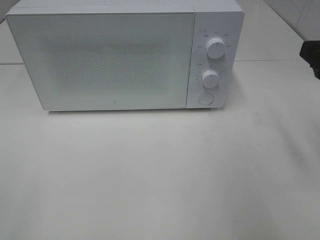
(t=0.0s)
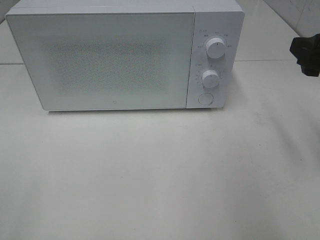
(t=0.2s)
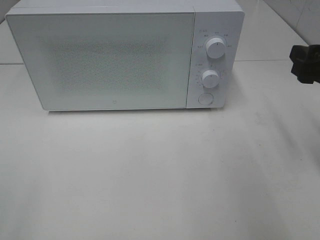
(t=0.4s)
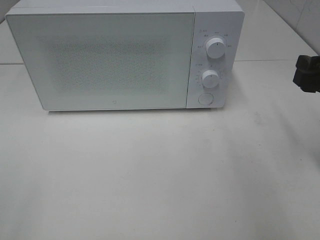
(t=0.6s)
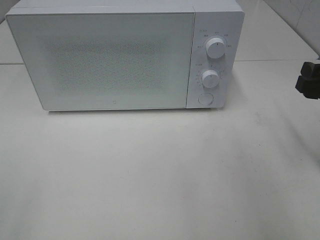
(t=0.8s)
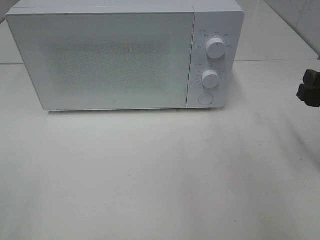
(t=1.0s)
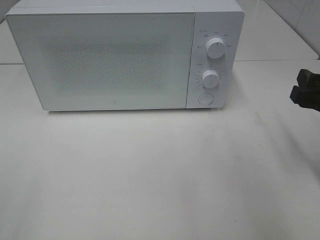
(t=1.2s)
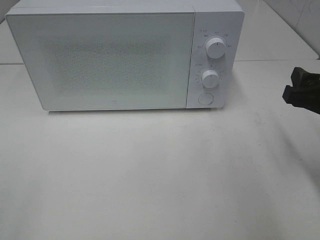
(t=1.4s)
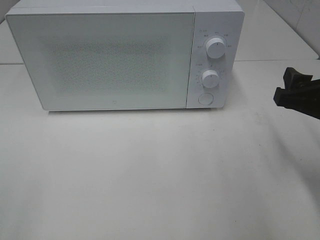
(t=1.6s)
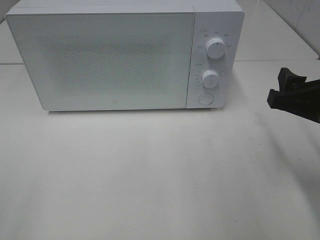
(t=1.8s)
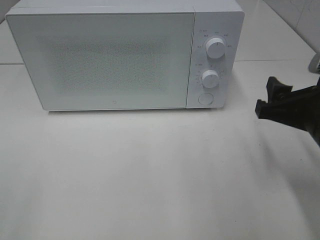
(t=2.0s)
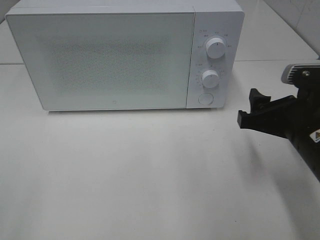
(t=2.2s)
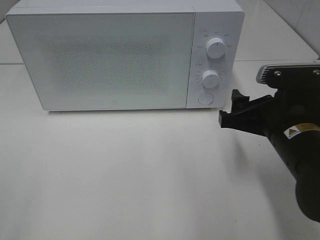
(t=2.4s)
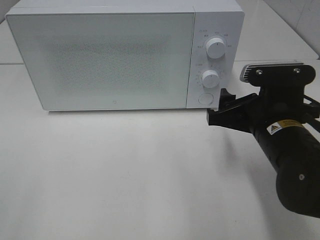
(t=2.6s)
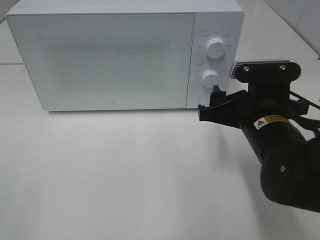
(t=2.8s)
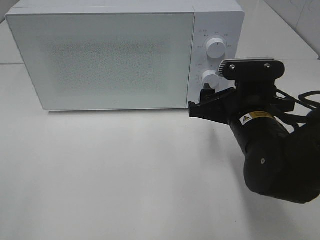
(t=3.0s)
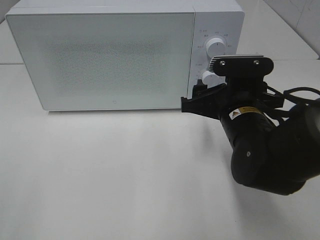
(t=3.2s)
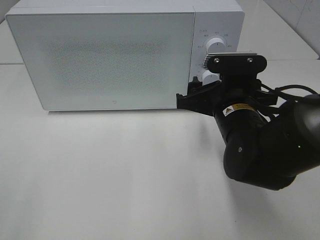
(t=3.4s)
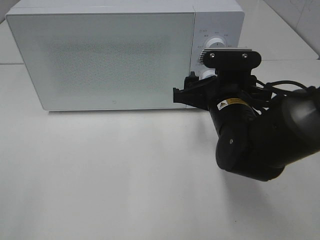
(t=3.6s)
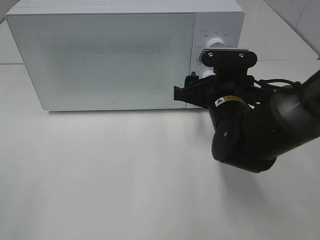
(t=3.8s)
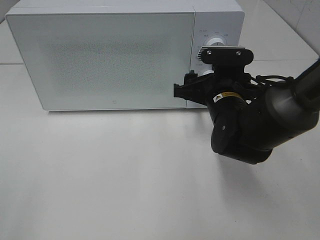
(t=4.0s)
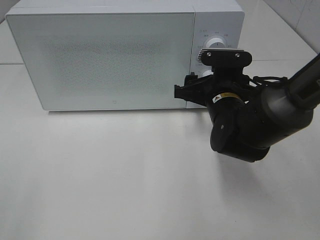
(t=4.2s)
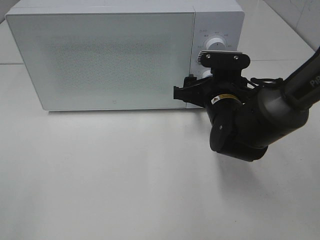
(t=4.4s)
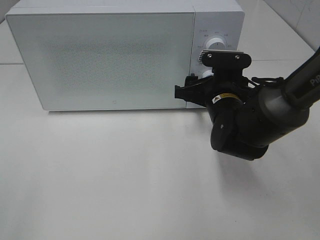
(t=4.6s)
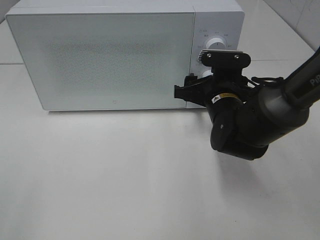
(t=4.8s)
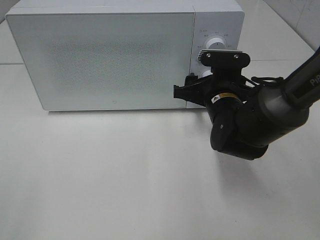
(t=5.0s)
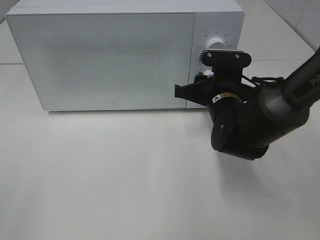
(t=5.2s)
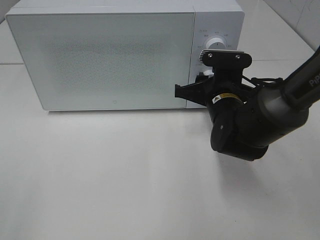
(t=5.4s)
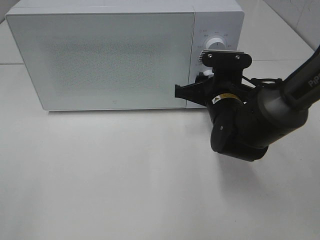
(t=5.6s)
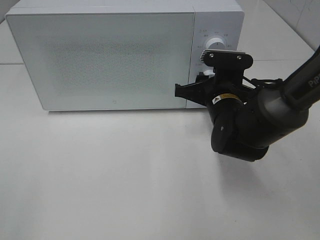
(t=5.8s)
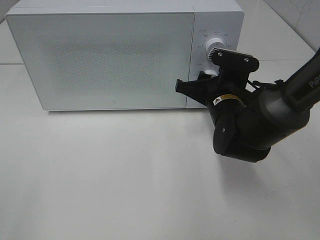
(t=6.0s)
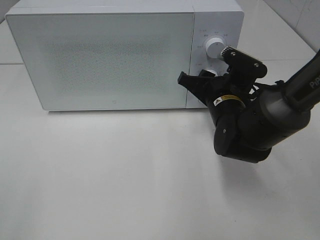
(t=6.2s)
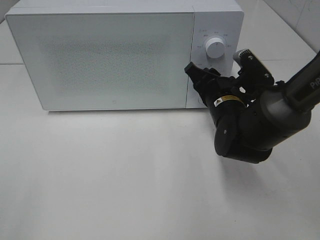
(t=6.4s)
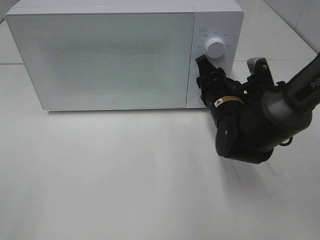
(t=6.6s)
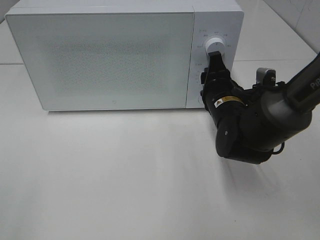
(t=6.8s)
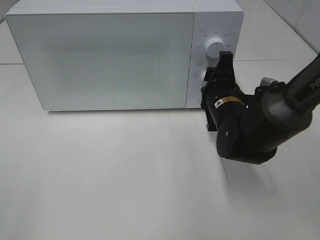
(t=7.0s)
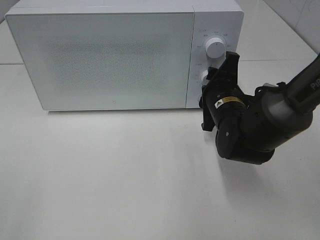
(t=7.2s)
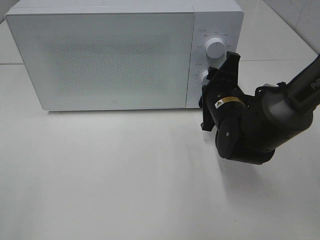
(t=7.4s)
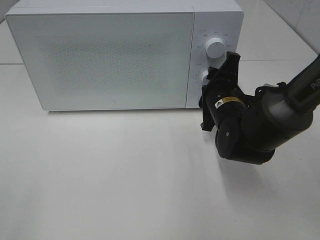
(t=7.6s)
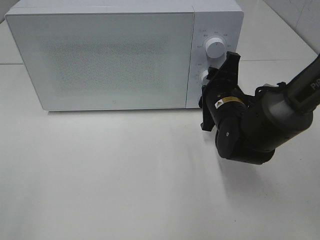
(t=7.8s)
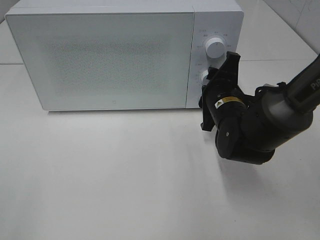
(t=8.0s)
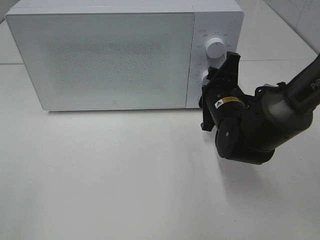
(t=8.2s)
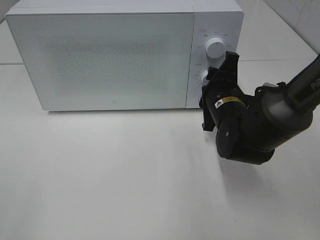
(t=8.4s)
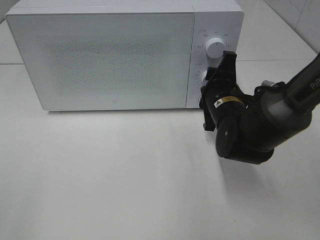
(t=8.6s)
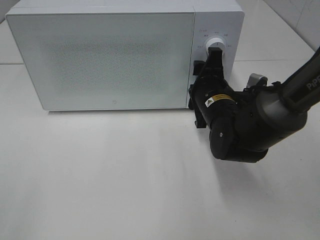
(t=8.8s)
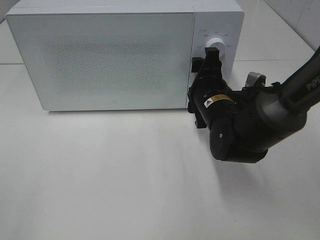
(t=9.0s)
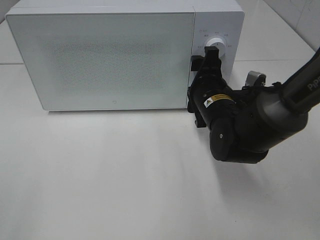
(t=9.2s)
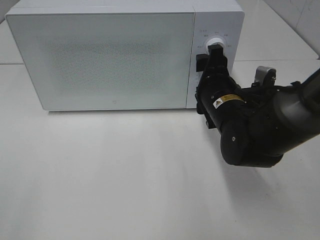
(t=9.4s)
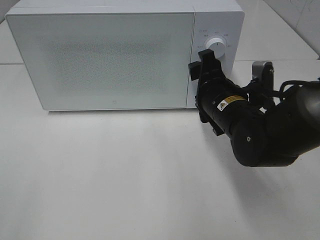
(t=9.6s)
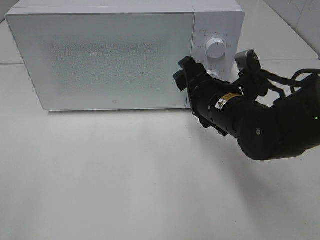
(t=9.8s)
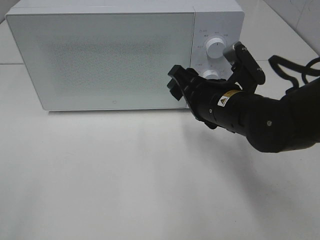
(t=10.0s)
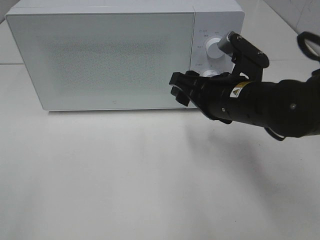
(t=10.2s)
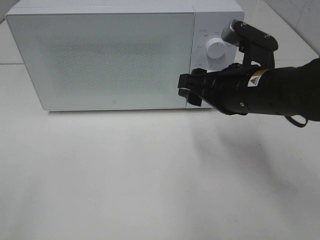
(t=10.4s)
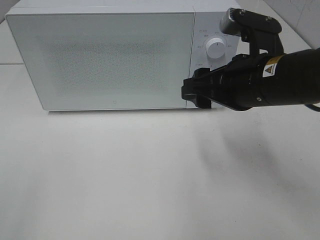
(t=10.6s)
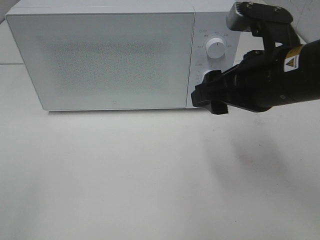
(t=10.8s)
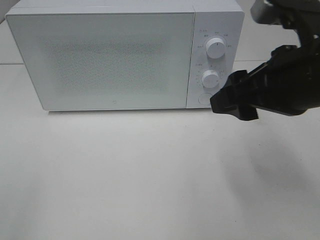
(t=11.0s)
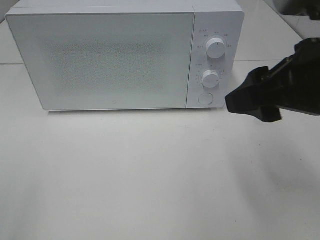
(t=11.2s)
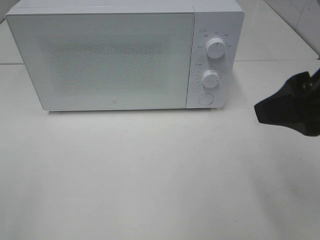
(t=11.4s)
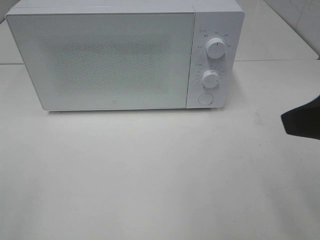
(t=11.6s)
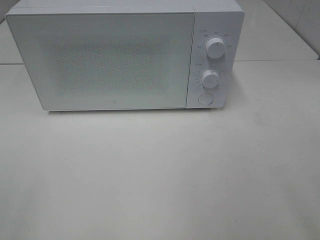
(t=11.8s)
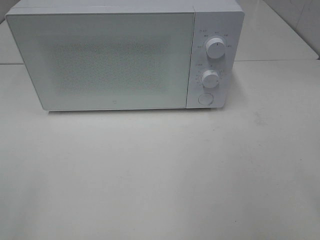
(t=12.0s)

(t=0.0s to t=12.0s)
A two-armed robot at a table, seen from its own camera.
Task of the whole recording: Heat the burger.
Step, t=0.0s - t=8.6s: Right hand: twist timer button.
t=0.0s - t=1.6s: The right gripper is displaced downward by approximately 5 cm.
t=1.6s - t=3.0s: The right gripper travels to the left by approximately 10 cm.
t=3.0s - t=4.4s: The right gripper shifts some 5 cm forward.
t=4.4s - t=6.0s: The right gripper closes its fingers.
t=7.6s - t=9.0s: There are only small adjustments of the grippers.
t=9.0s - t=10.4s: The right gripper goes some 10 cm upward and backward.
t=10.4s - t=12.0s: The right gripper shifts some 25 cm backward, upward and to the right.

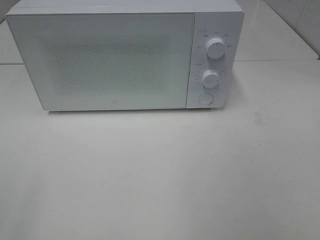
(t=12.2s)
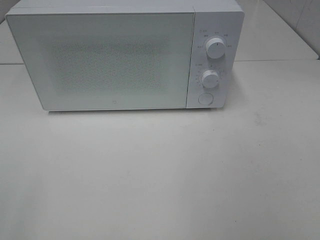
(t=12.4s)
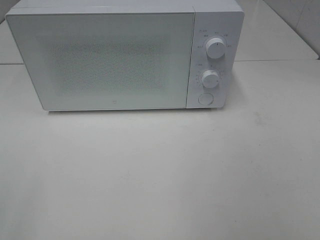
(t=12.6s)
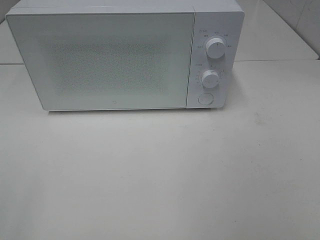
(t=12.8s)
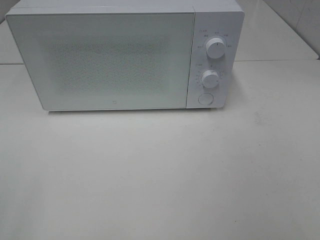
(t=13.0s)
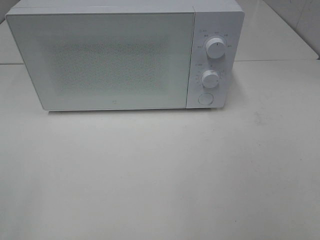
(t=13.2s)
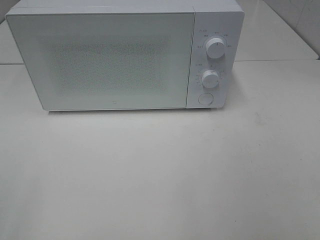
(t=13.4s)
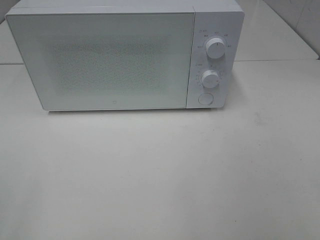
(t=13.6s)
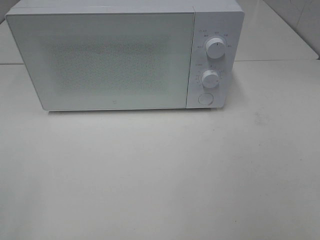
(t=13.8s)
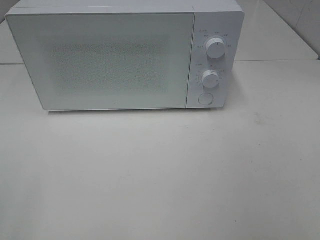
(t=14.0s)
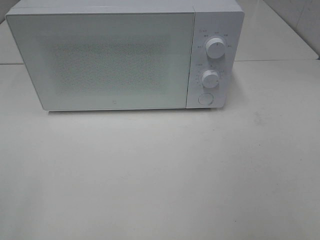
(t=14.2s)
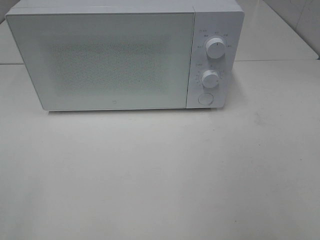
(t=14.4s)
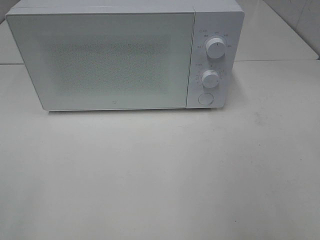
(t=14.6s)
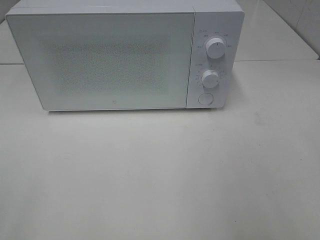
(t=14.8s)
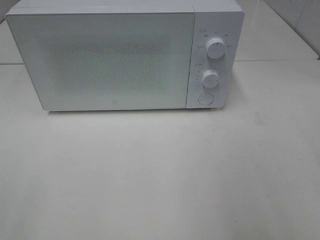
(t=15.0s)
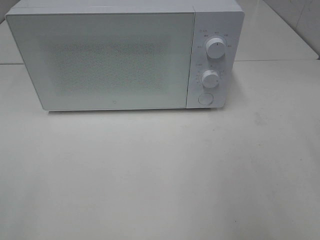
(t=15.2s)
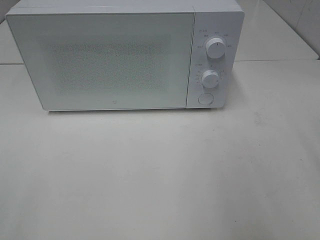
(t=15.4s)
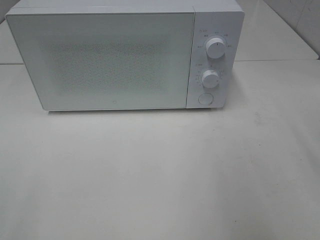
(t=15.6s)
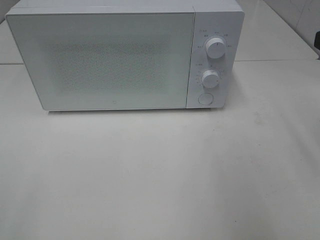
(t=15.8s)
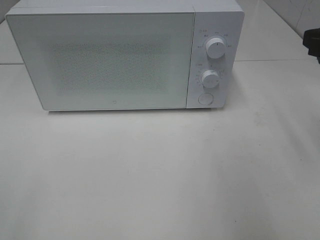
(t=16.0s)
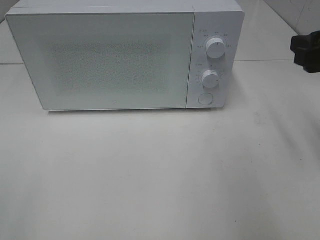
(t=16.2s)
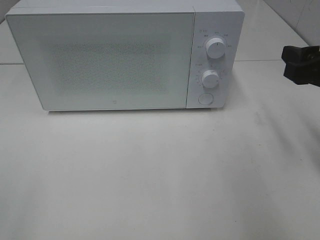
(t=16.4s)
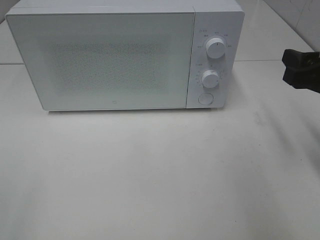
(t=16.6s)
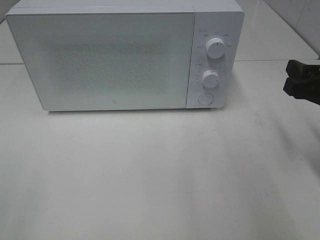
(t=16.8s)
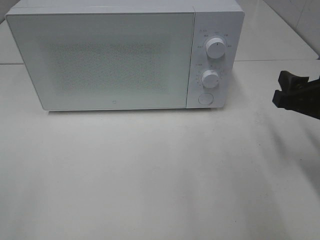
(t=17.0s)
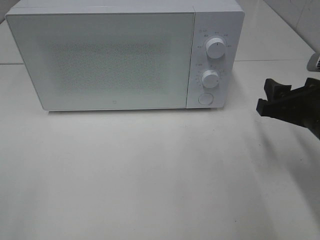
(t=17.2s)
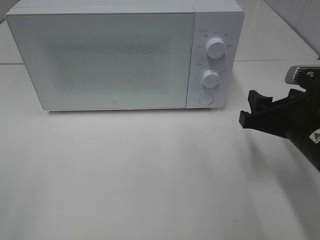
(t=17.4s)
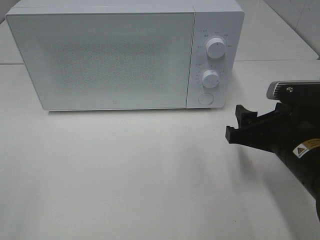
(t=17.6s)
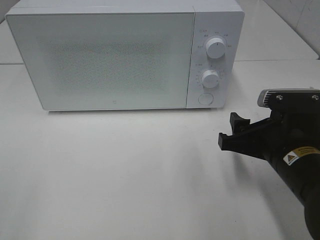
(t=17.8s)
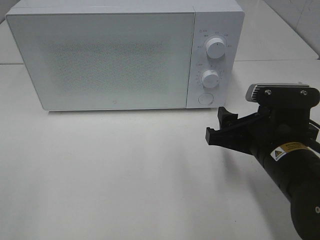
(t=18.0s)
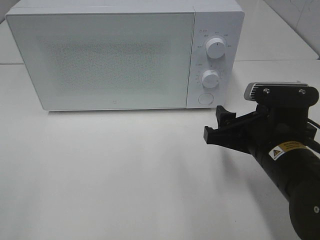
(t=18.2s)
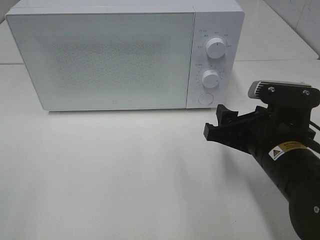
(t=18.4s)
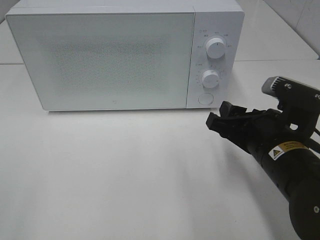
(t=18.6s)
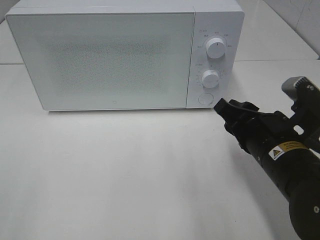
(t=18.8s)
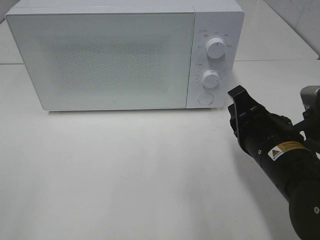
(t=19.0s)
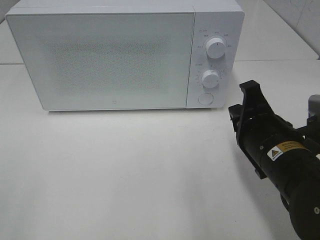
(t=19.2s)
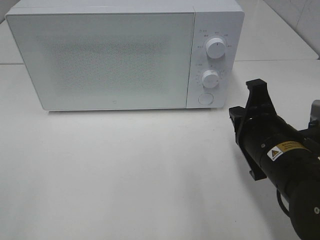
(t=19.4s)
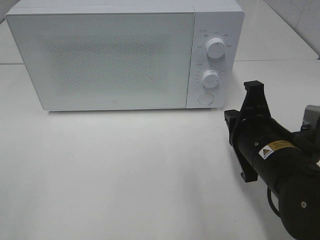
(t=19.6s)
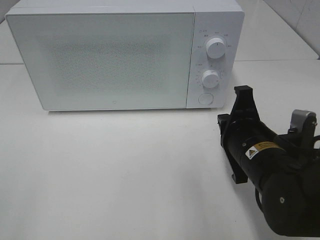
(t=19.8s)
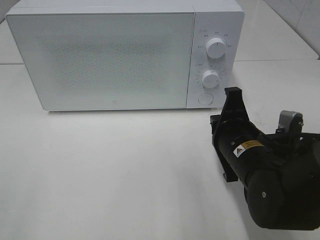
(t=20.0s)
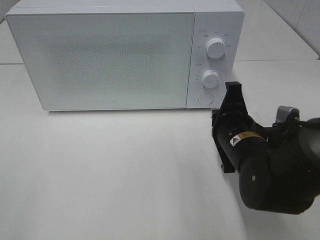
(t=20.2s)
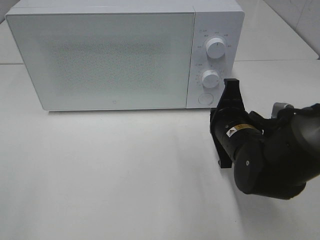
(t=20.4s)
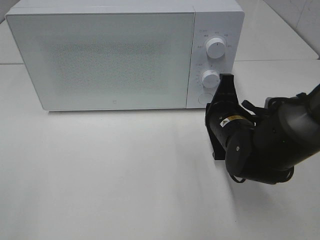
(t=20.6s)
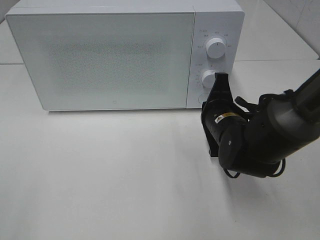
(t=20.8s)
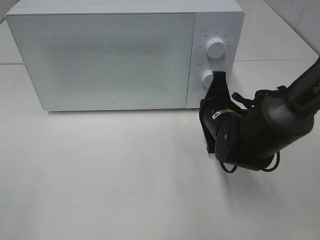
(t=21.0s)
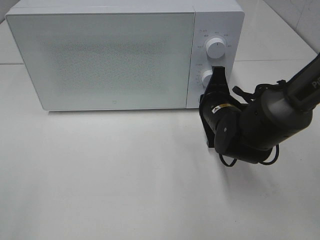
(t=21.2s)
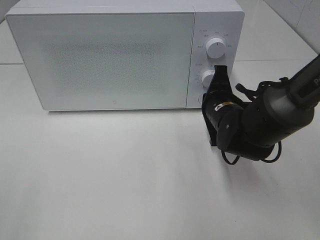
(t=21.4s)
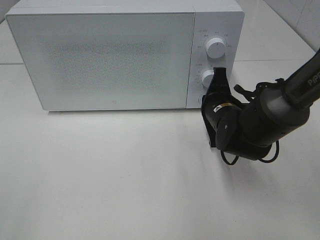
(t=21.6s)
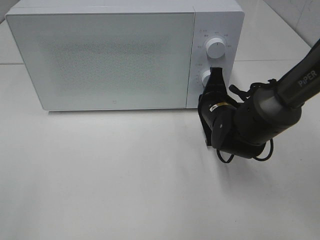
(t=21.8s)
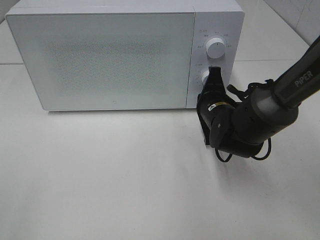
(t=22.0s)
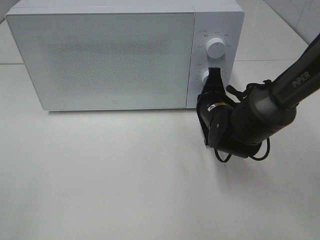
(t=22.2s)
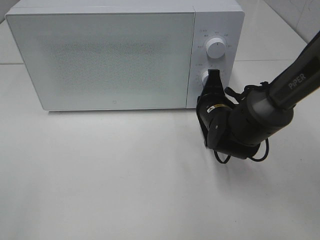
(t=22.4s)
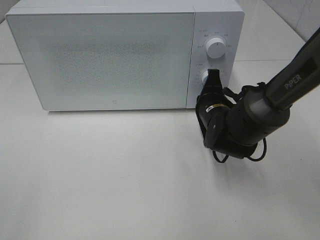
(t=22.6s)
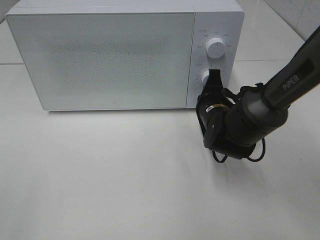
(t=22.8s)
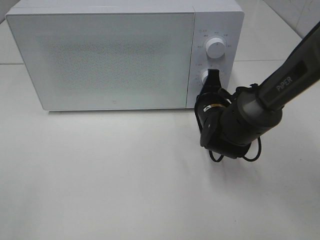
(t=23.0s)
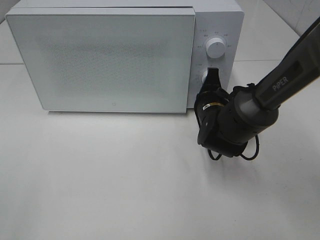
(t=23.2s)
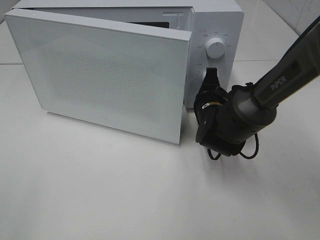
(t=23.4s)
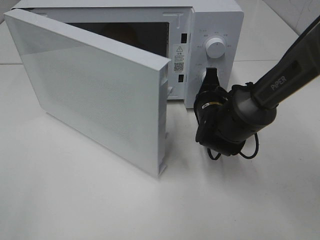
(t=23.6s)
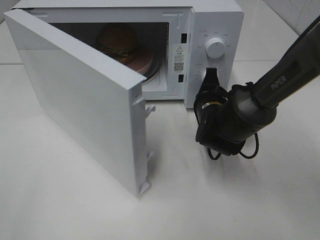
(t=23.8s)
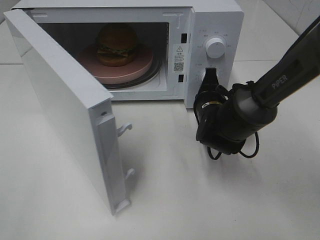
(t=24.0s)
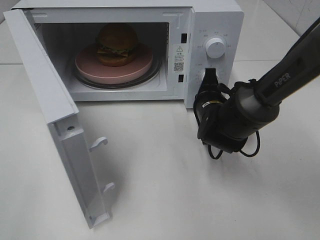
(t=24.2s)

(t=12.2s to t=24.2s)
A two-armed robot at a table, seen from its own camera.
Task of the whole recording: Heat the burger.
t=15.2s - t=16.6s: The right gripper travels downward and forward by about 15 cm.
t=16.6s - t=18.2s: The right gripper moves to the left and downward, about 15 cm.
t=18.2s - t=19.8s: The right gripper closes.
t=19.8s - t=21.2s: The right gripper moves forward, roughly 10 cm.
t=21.2s - t=22.6s: There are only small adjustments of the grippers.
